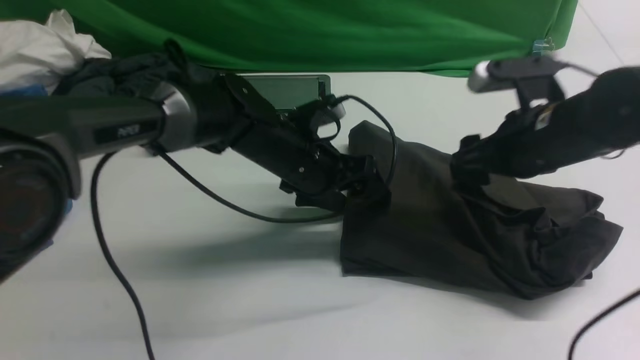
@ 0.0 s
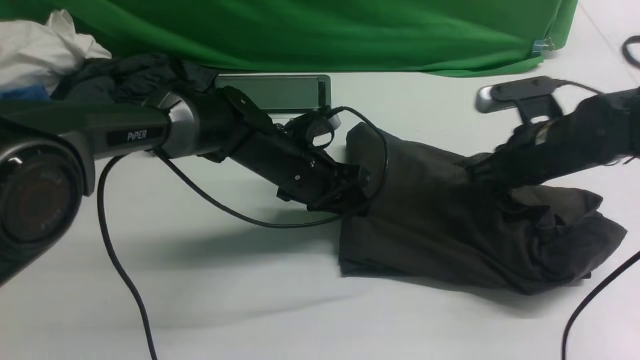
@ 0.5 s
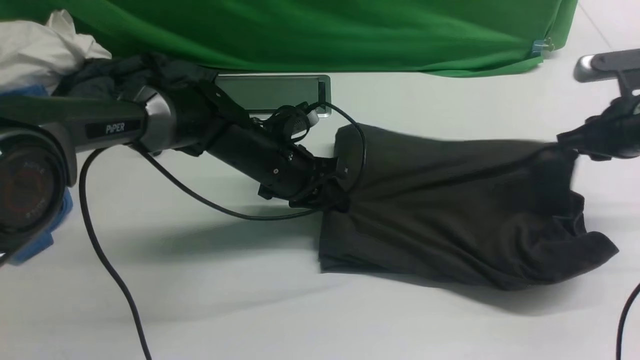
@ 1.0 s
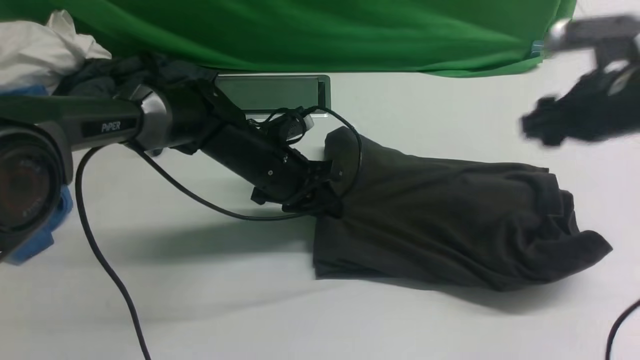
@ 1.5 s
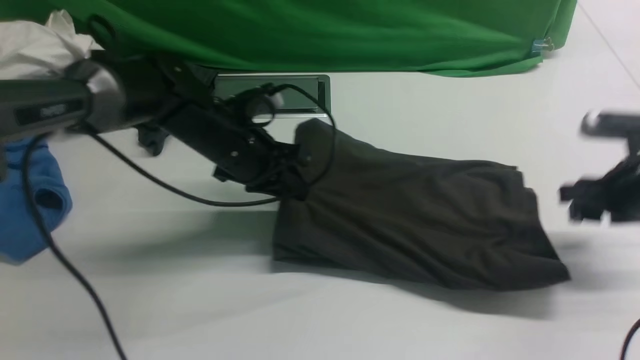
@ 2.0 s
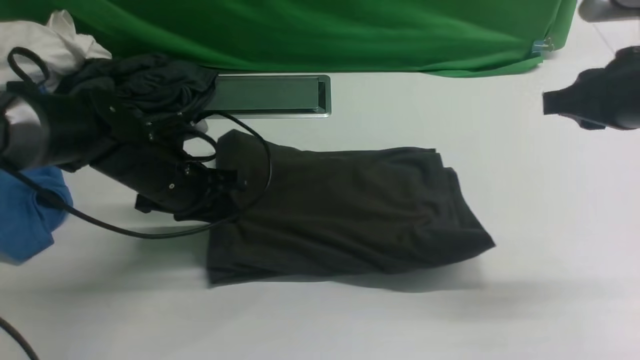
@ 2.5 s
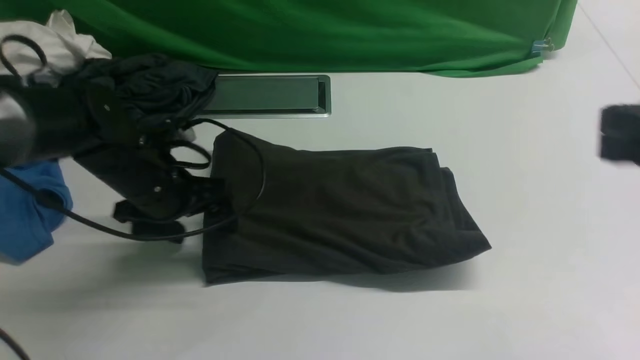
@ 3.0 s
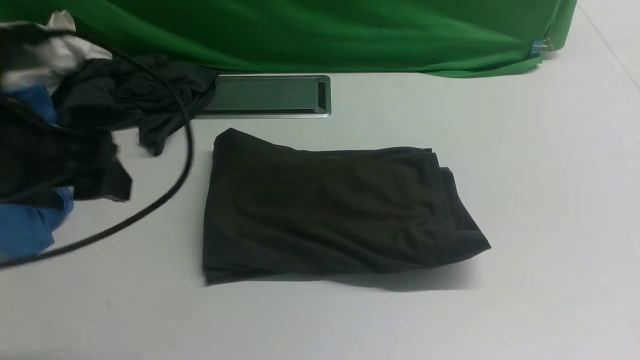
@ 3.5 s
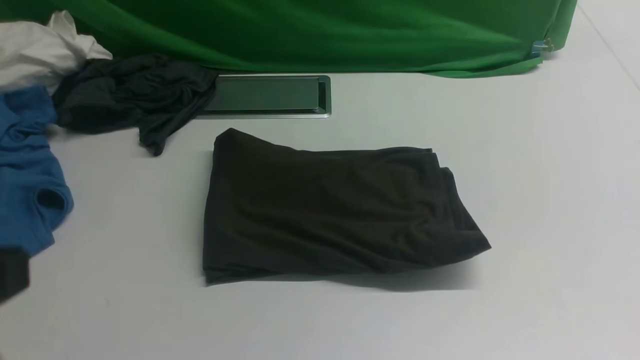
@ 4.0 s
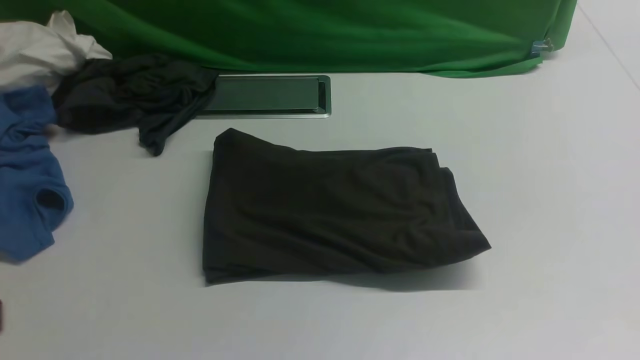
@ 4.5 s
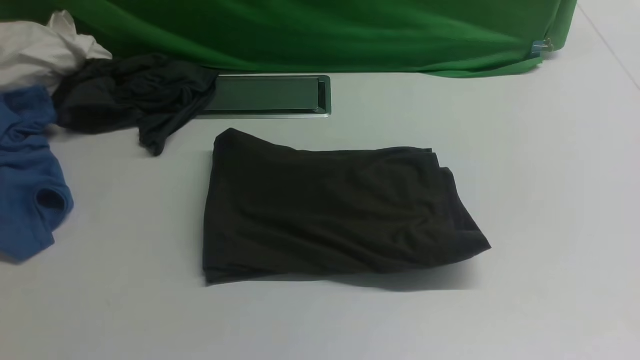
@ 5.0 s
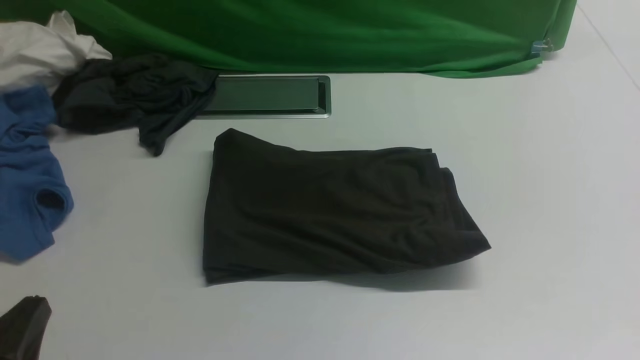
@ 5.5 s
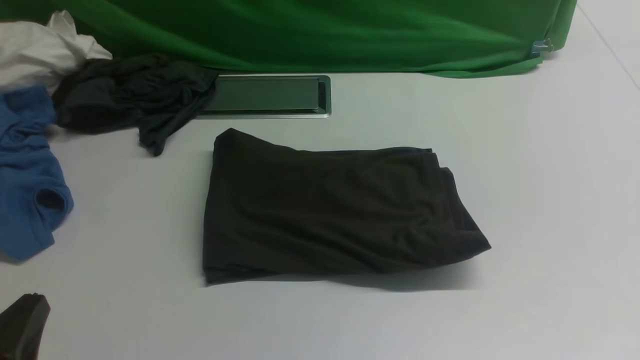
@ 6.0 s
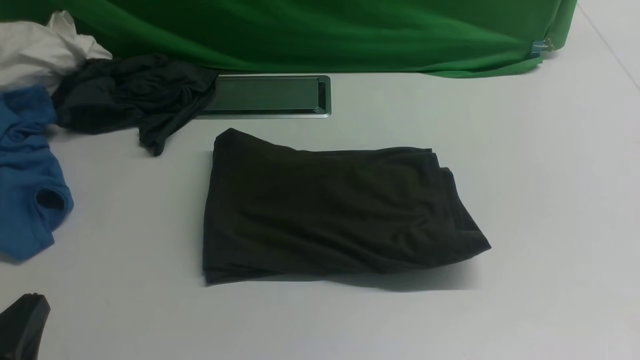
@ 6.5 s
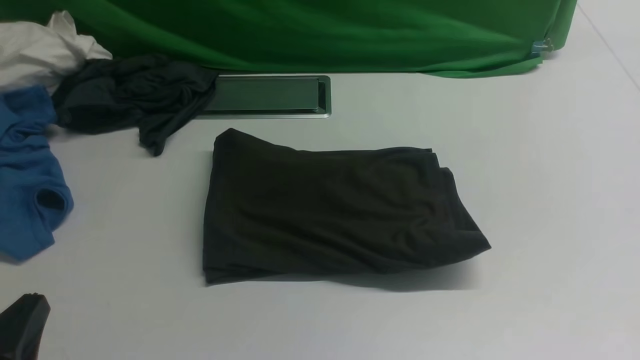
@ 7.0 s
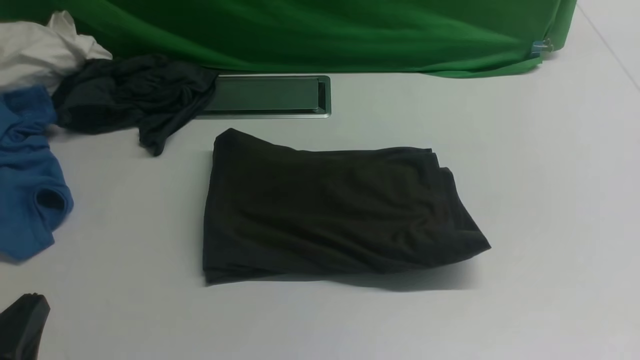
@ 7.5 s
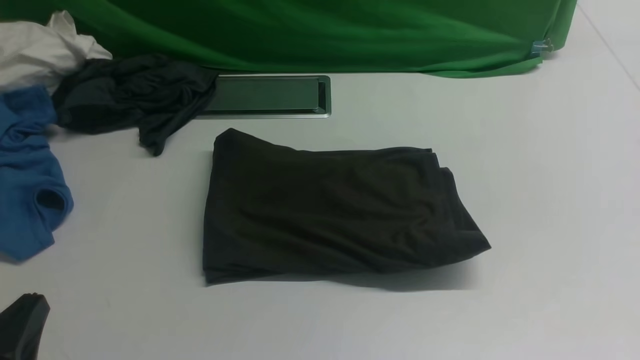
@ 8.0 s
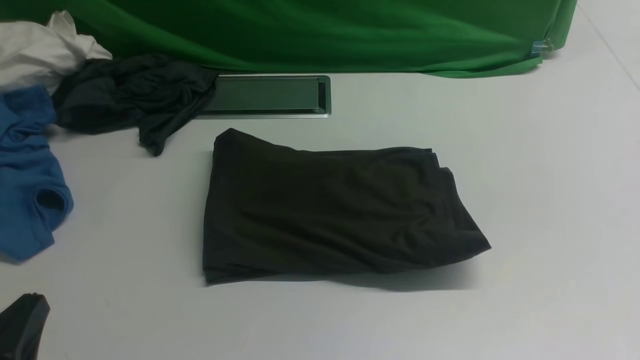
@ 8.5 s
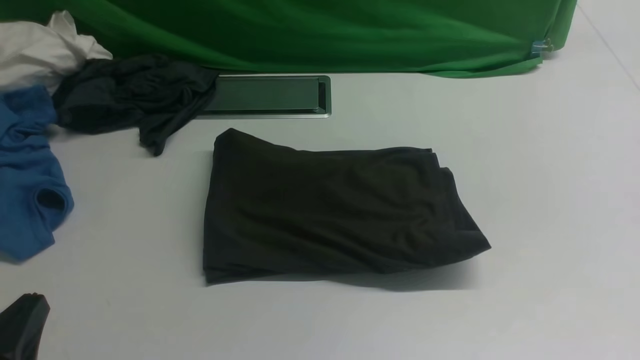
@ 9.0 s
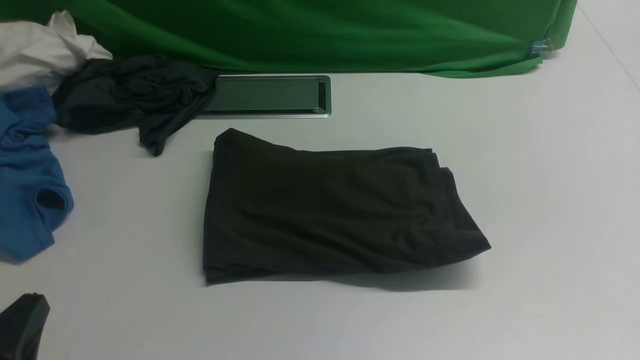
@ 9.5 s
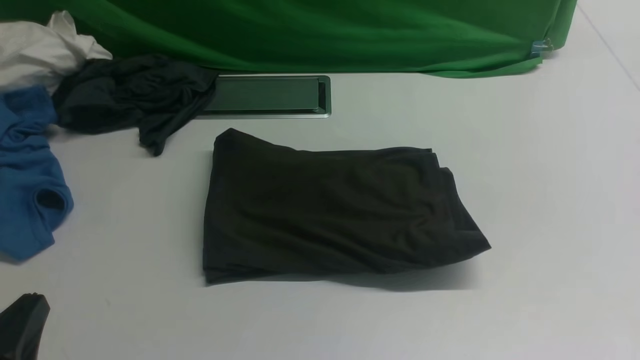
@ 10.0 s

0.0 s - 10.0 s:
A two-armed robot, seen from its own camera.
0.0 s - 2.0 s: The right gripper travels to the right by approximately 10 cm, and closes, then reopens, while the left gripper is displaced to the left by roughly 10 cm, and closes its fingers.
2.0 s - 4.0 s: The left gripper shifts roughly 40 cm backward and upward, and opens and closes again; the right gripper goes some 25 cm backward, and closes up.
4.0 s - 6.0 s: The left gripper shifts some 20 cm downward.
8.0 s - 10.0 s: Both grippers stay put.

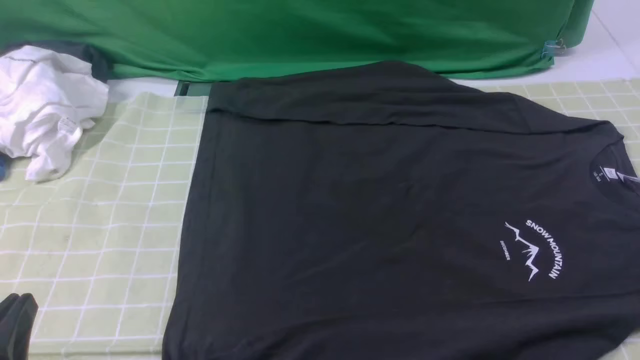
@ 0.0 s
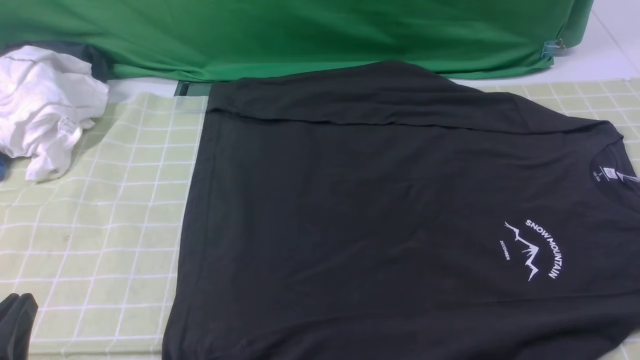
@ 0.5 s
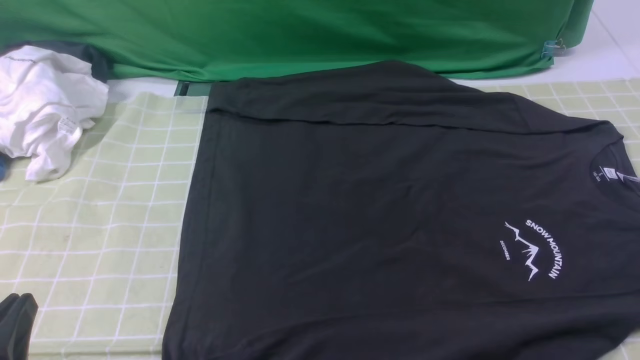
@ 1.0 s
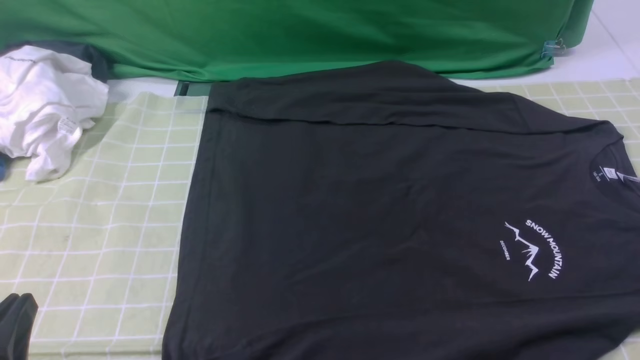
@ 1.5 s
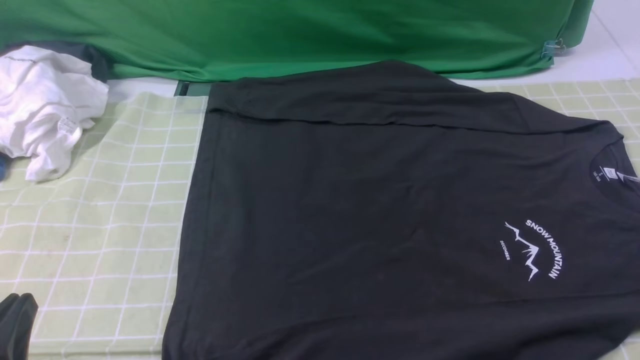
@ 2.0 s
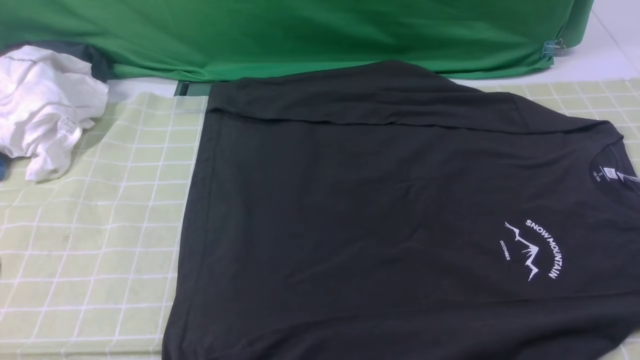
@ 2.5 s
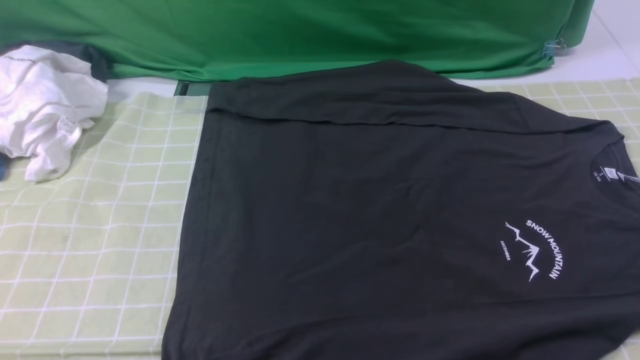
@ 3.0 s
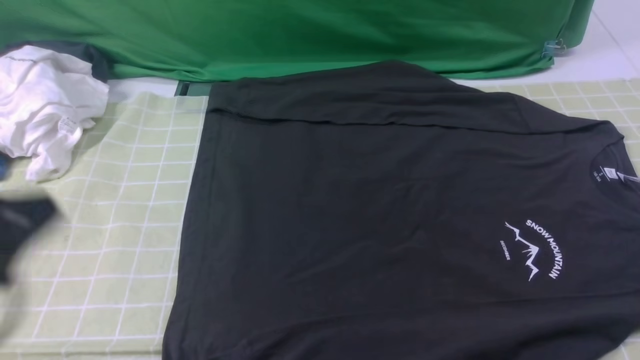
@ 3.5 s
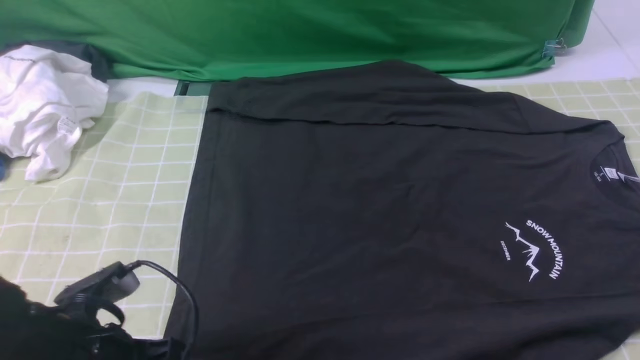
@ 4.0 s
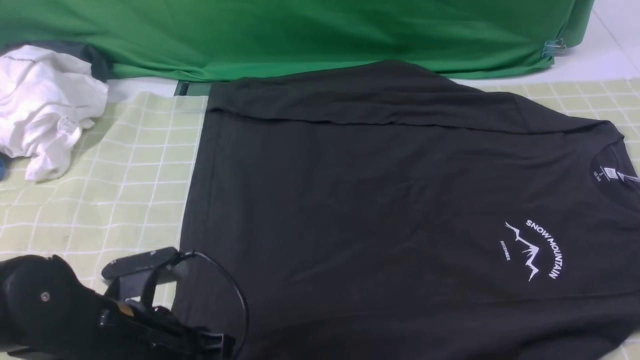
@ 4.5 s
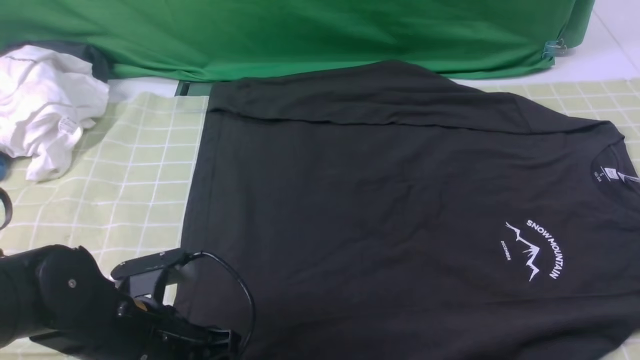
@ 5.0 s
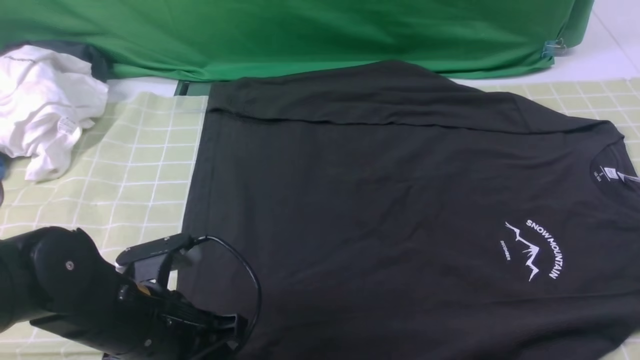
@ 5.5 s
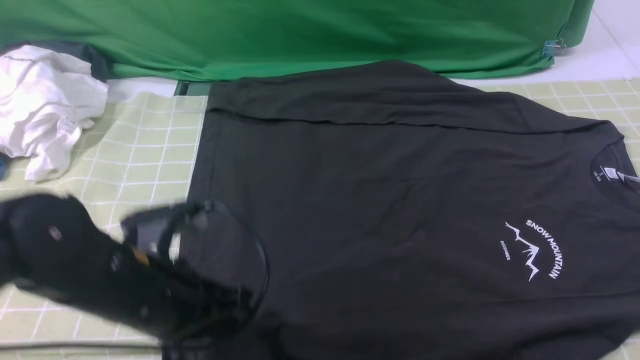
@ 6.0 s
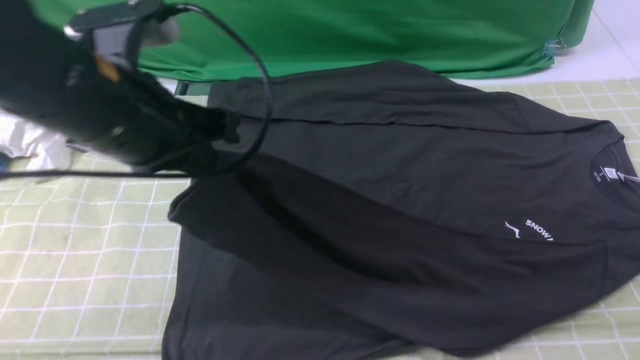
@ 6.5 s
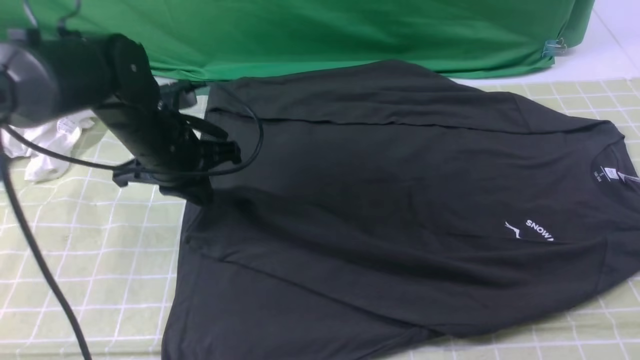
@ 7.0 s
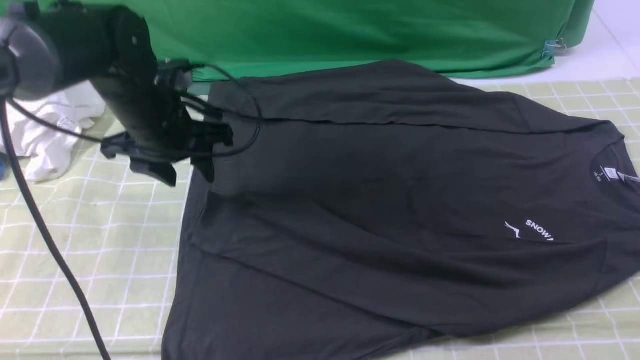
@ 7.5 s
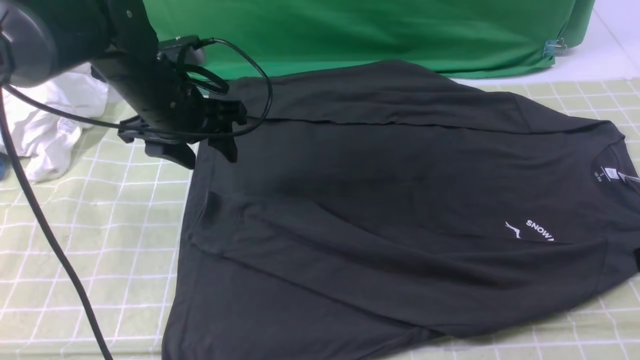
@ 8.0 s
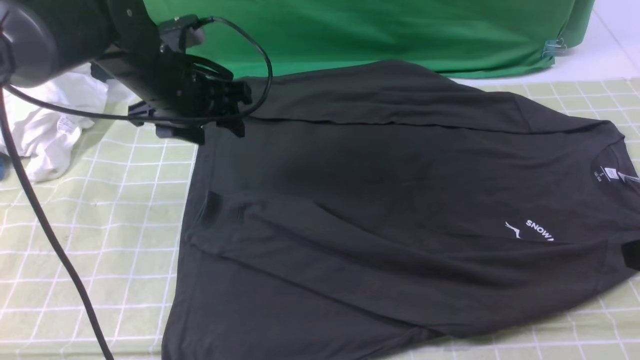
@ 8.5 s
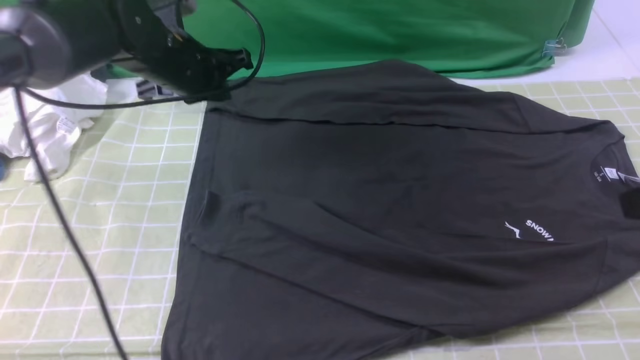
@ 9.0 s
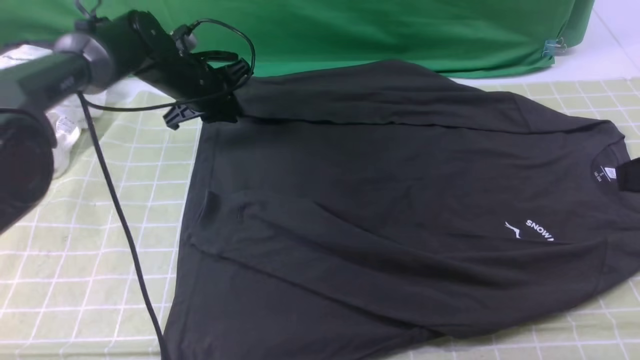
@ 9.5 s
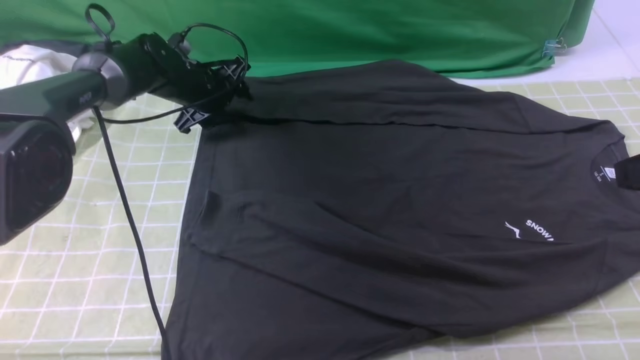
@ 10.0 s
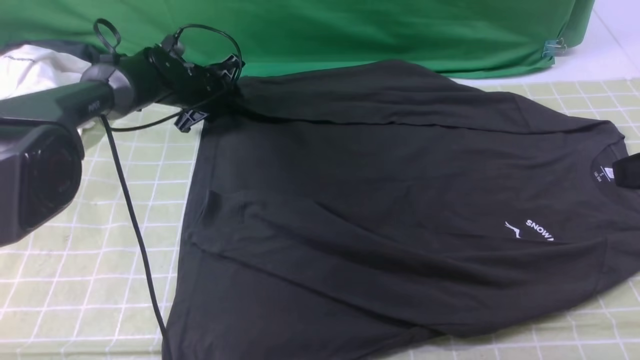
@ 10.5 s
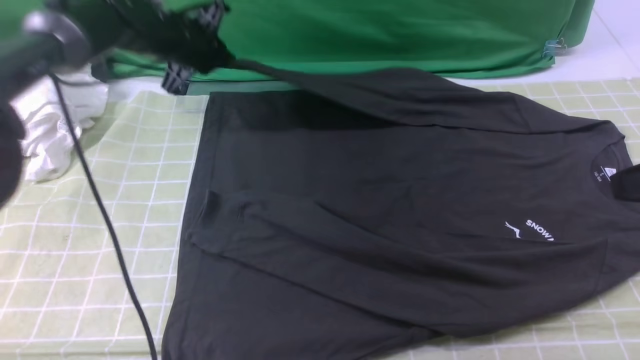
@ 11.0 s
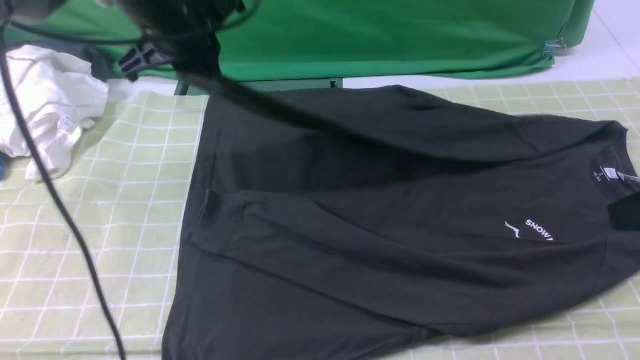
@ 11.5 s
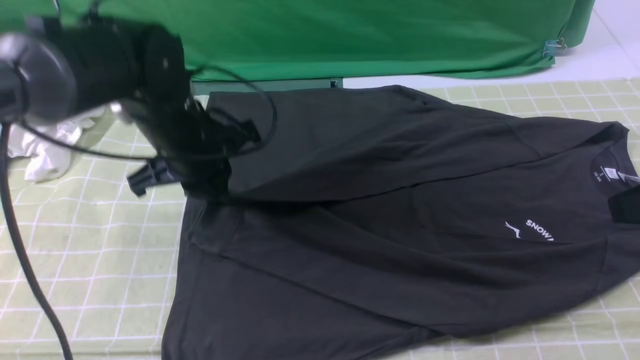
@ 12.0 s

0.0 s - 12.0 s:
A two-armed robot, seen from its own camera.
Step, 0.0 s - 5.0 s: use the left arm to clamp the cuff closest to it.
Step, 5.5 s - 7.5 s: use the left arm to drag and place the cuff at the centered position on the left edge of the fabric.
Step, 8.0 s - 10.5 s: use the left arm to clamp the cuff farthest from it.
2.0 s - 4.0 s: The left gripper heads forward and to the right, covering roughly 10 cm, and reaches approximately 10 cm upward, then returns.
4.0 s - 6.0 s: The left gripper heads upward and forward, covering some 5 cm, and opens, then closes again.
6.0 s - 8.0 s: The left gripper heads forward, covering roughly 20 cm, and opens its fingers.
8.0 s - 10.0 s: The right gripper shifts by some 5 cm, while the left gripper is displaced forward and downward by some 15 cm, and closes, then opens again.
10.0 s - 12.0 s: The left gripper is displaced backward and upward by approximately 20 cm, and closes its fingers.
